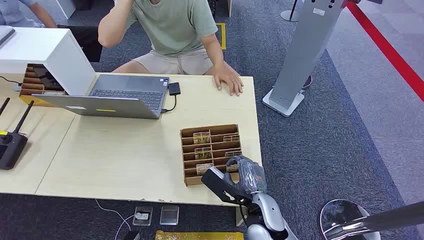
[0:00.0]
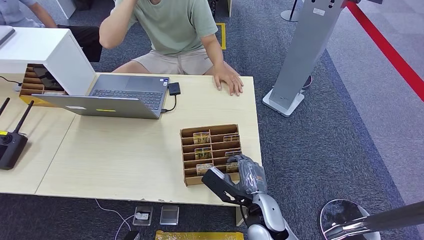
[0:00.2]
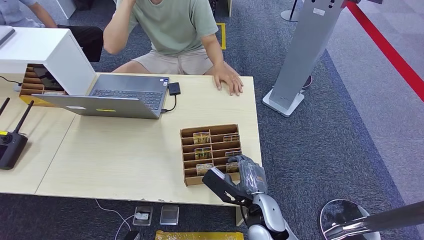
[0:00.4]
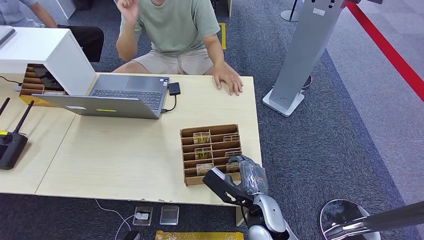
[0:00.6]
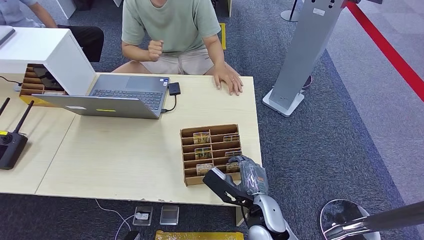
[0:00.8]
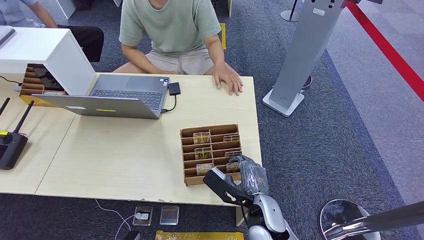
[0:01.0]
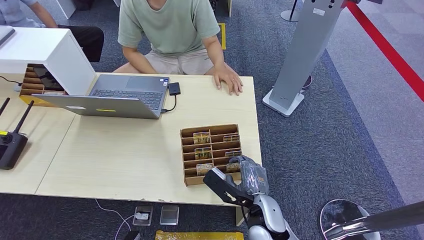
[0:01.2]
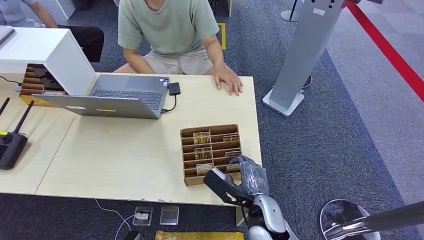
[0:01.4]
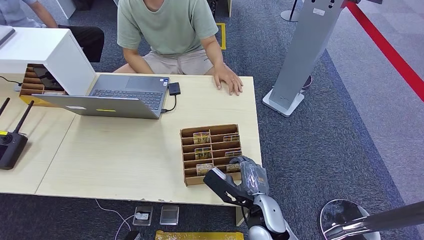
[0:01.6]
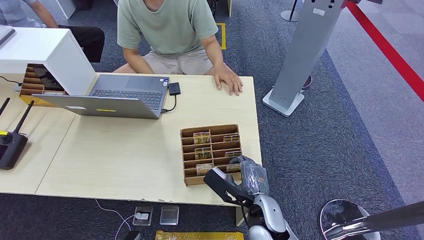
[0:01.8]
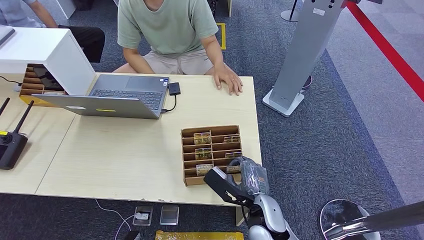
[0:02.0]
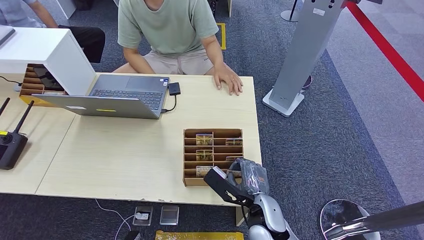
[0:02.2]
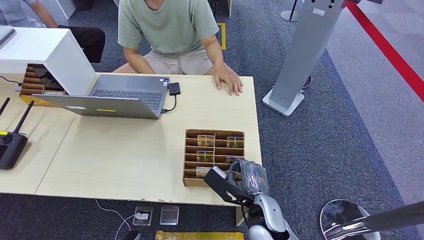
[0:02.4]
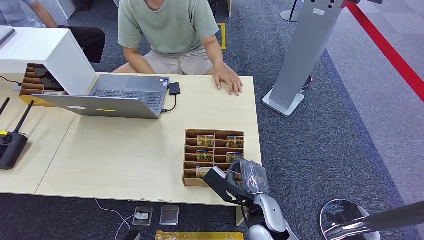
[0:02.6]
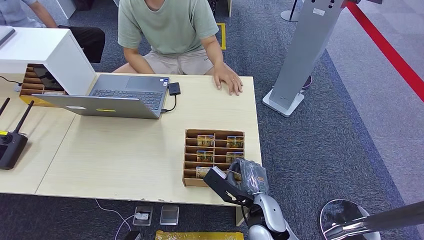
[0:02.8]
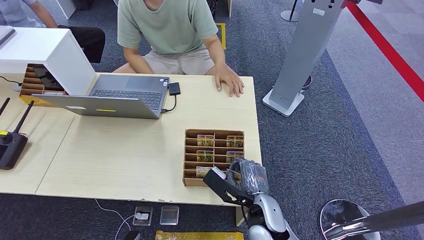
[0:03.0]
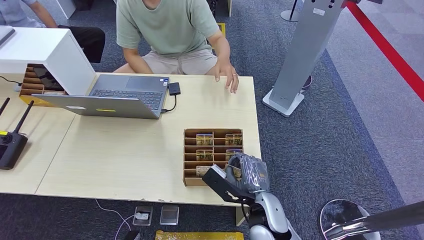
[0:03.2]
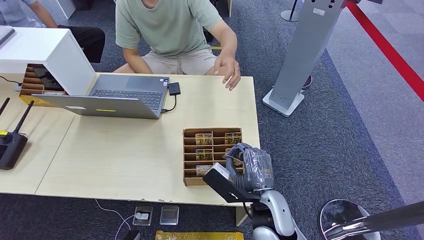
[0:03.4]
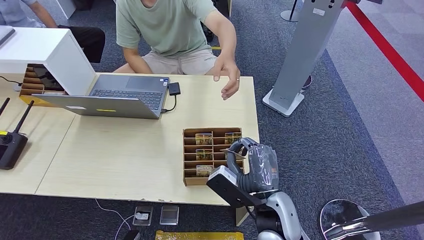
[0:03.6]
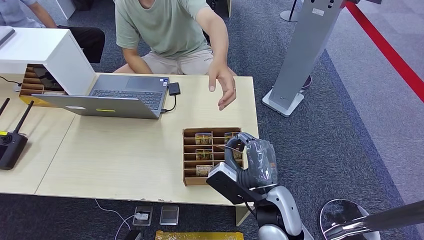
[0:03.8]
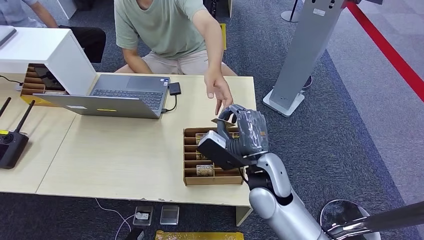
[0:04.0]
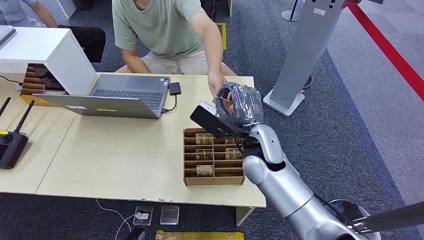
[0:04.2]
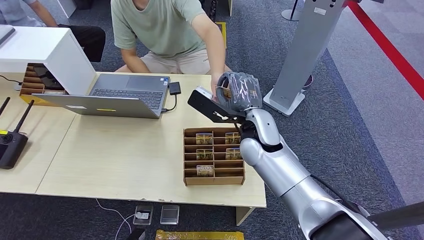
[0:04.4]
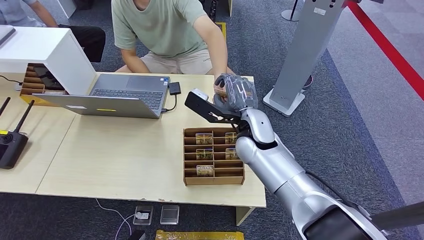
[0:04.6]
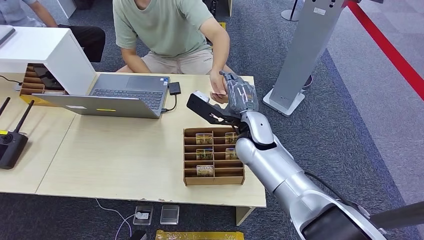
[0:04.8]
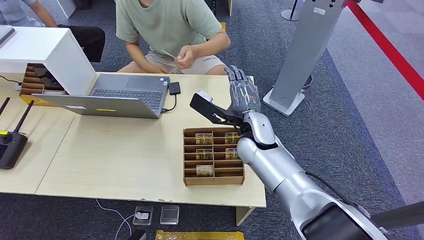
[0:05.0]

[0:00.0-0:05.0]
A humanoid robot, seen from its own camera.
Step, 0:00.0 to 0:03.4: Pick up the room card from the card holder.
Step, 0:04.0 to 0:05.0: Hand the room card to the target.
0:01.6 to 0:03.4: The right hand shifts roughly 10 cm upward.
0:03.4 to 0:05.0: The right hand is displaced forward by some 20 cm.
